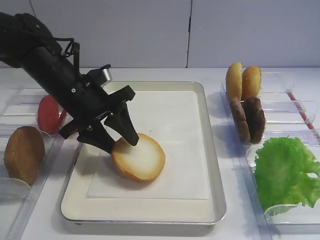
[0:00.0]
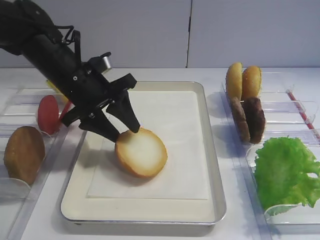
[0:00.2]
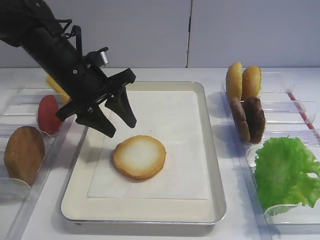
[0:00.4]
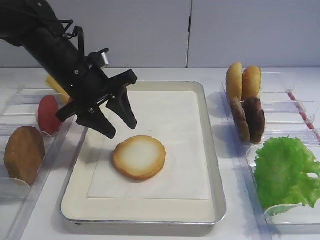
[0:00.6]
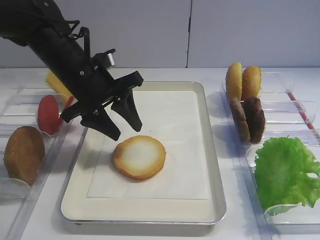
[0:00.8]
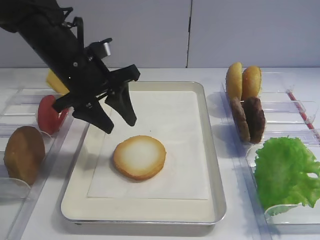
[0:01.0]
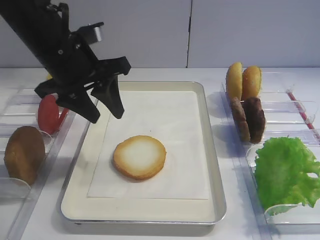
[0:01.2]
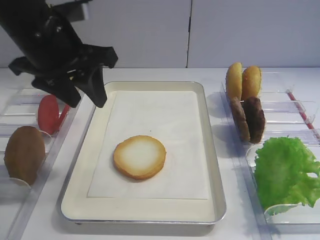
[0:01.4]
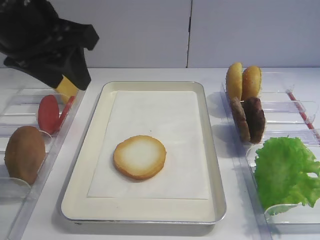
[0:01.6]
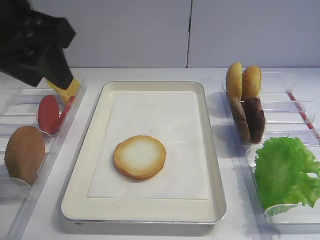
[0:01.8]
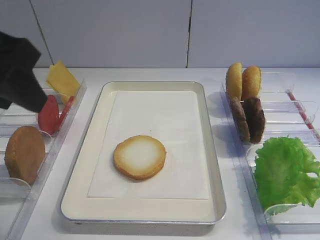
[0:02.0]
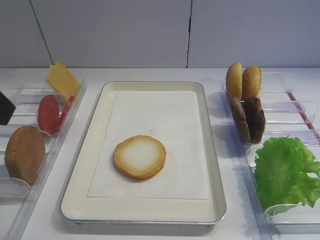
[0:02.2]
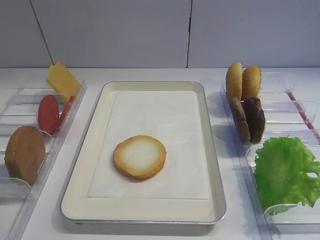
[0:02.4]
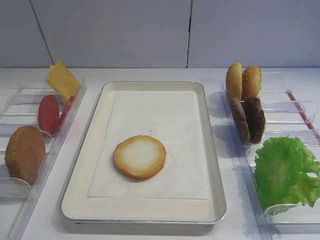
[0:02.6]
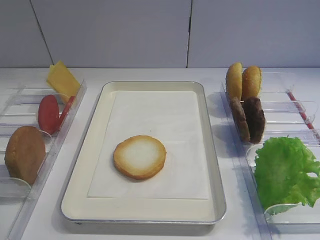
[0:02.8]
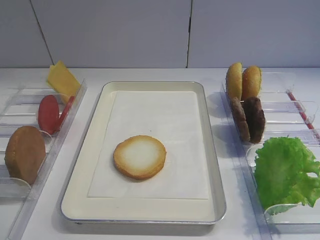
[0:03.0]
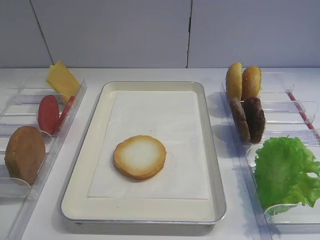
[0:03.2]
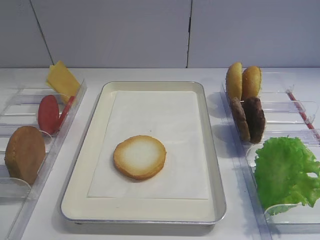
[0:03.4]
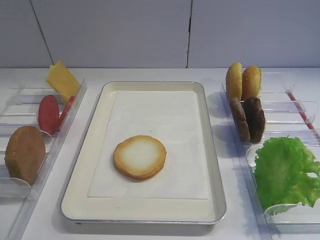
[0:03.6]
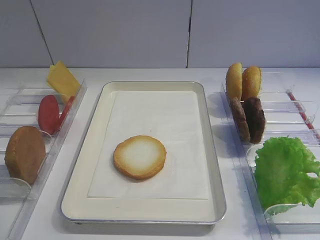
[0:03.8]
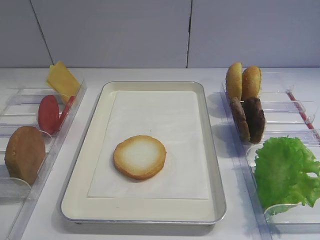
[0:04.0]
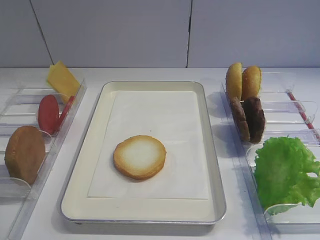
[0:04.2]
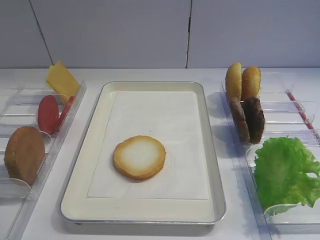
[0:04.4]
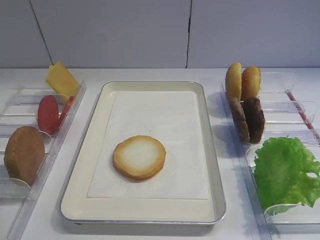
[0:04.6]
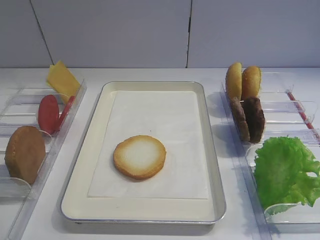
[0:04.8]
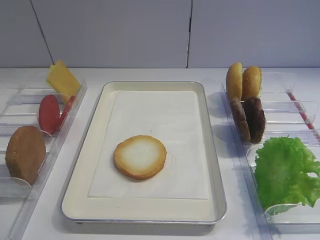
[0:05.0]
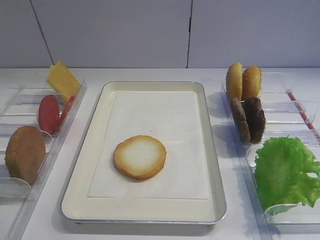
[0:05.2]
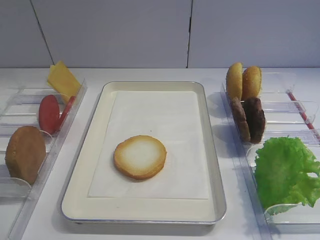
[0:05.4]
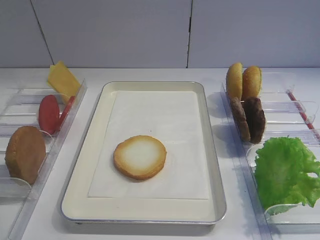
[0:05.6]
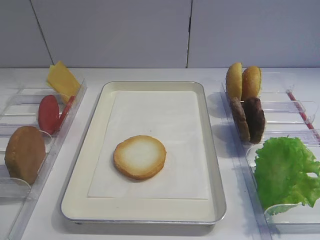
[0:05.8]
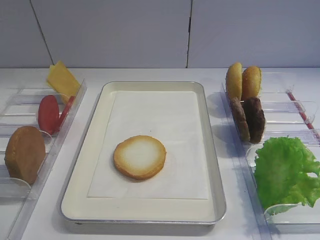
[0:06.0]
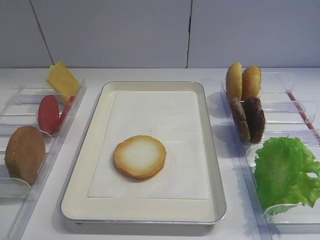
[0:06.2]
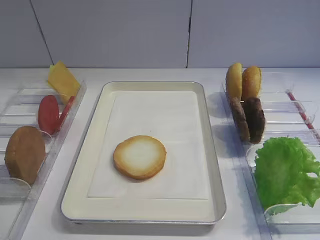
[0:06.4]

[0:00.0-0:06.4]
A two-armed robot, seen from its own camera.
0:00.0 to 0:01.6: The left gripper shifts about 20 cm upward and backward.
0:01.6 to 0:03.2: The left gripper is displaced backward and to the left by some 20 cm.
